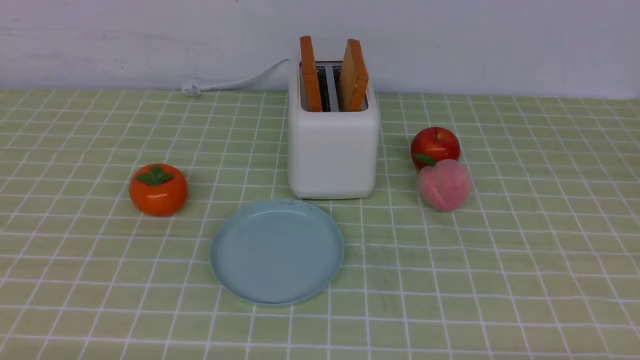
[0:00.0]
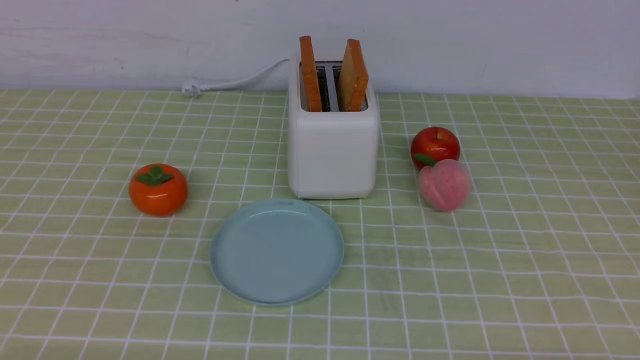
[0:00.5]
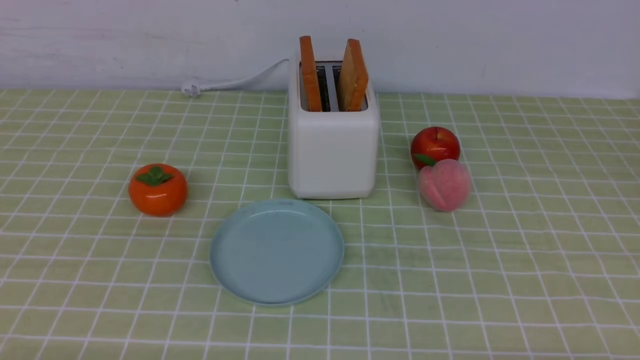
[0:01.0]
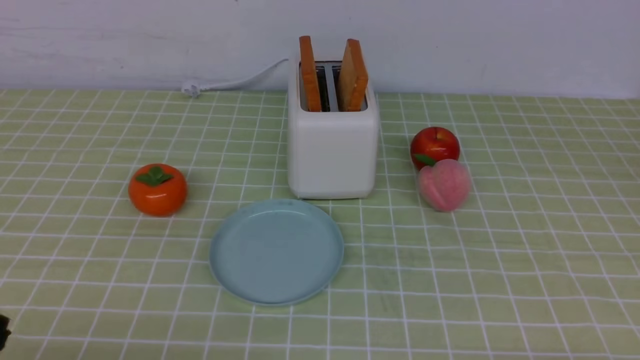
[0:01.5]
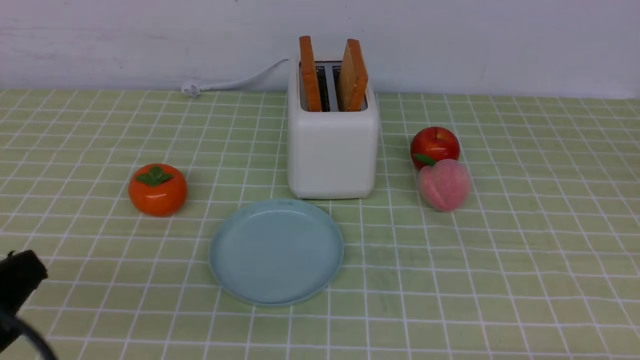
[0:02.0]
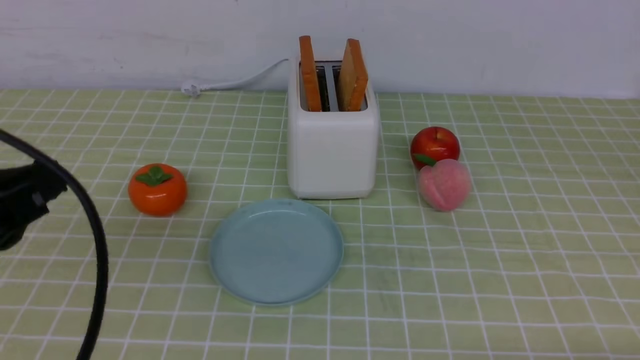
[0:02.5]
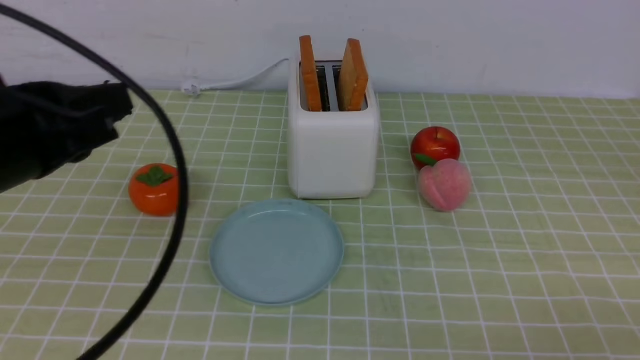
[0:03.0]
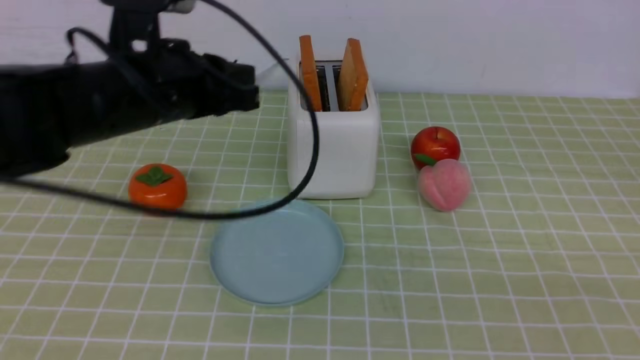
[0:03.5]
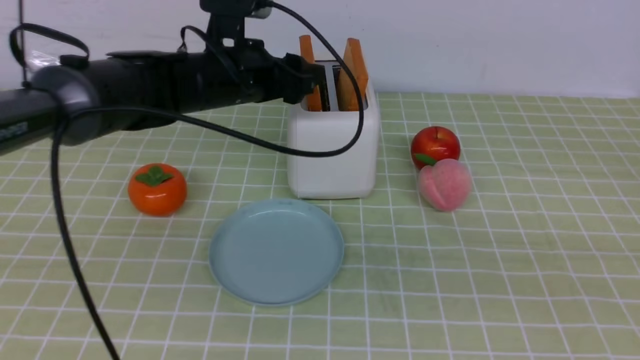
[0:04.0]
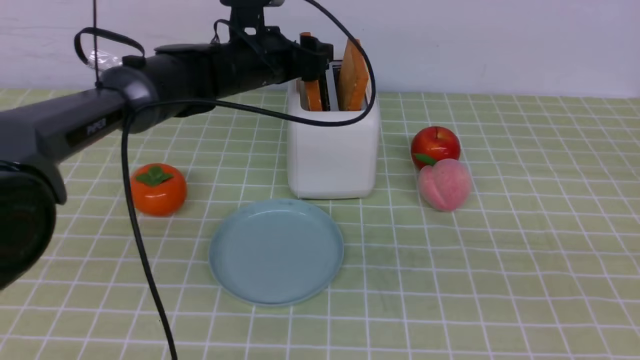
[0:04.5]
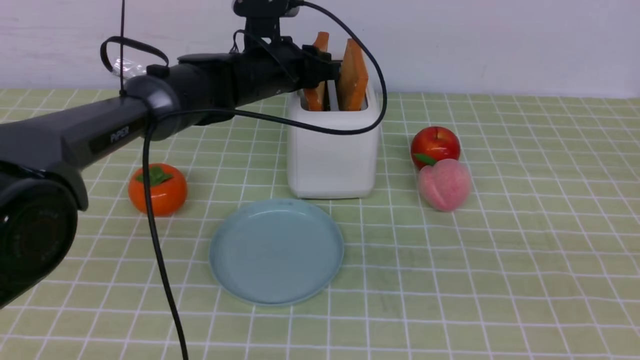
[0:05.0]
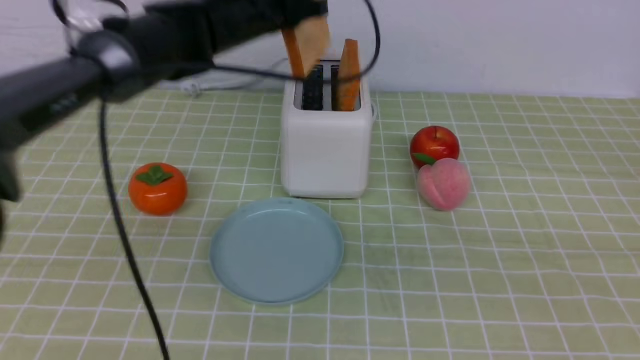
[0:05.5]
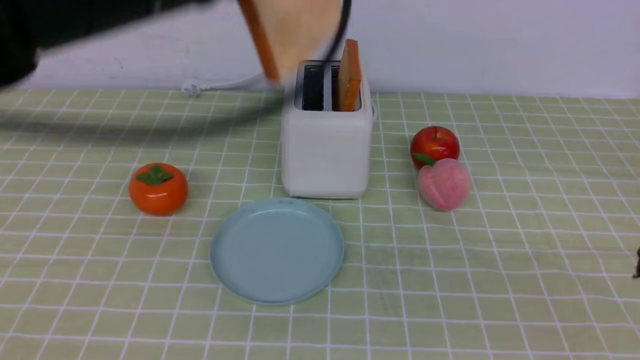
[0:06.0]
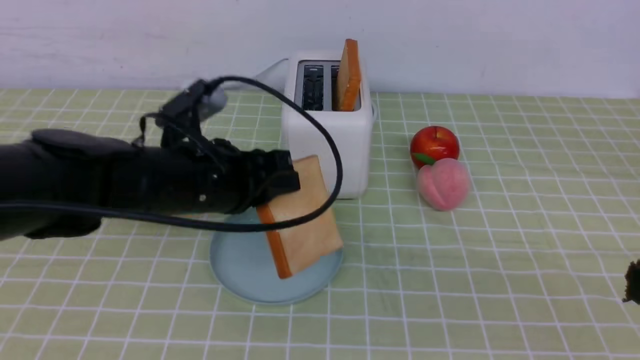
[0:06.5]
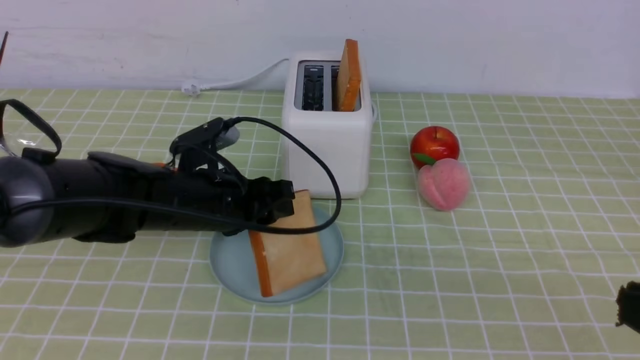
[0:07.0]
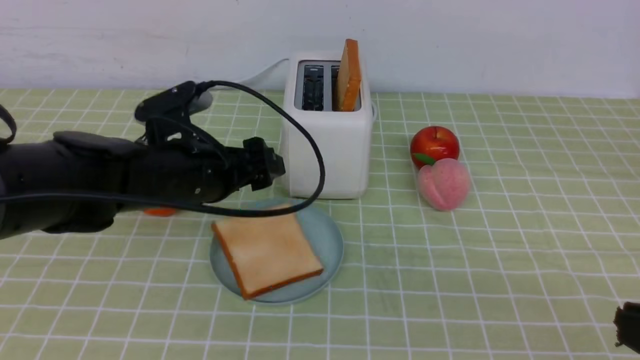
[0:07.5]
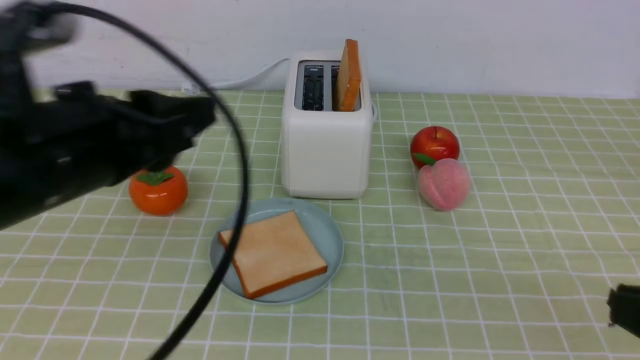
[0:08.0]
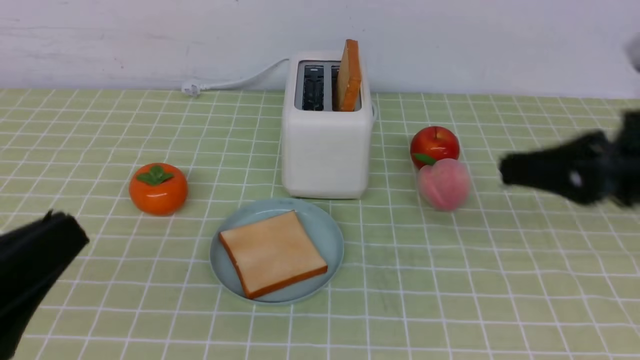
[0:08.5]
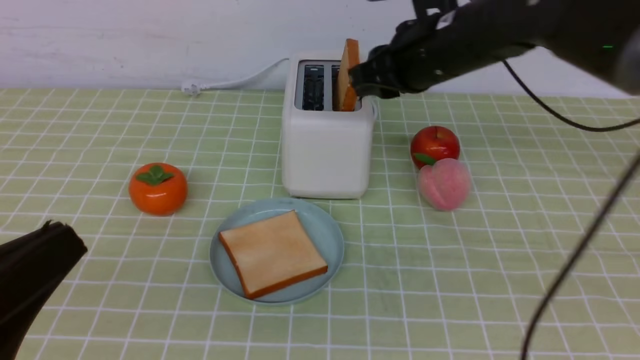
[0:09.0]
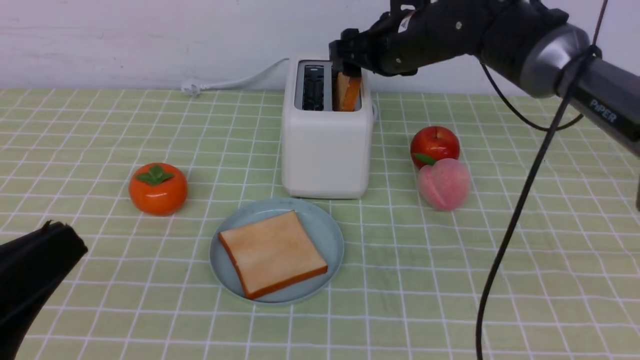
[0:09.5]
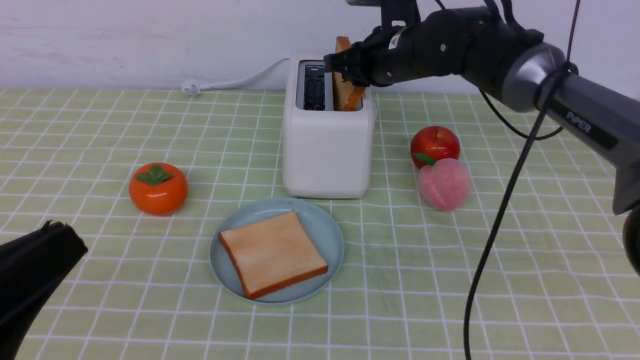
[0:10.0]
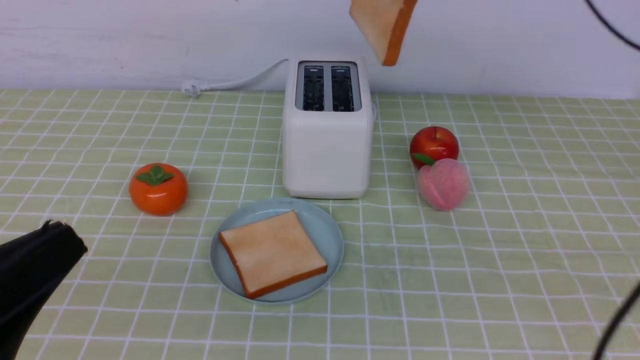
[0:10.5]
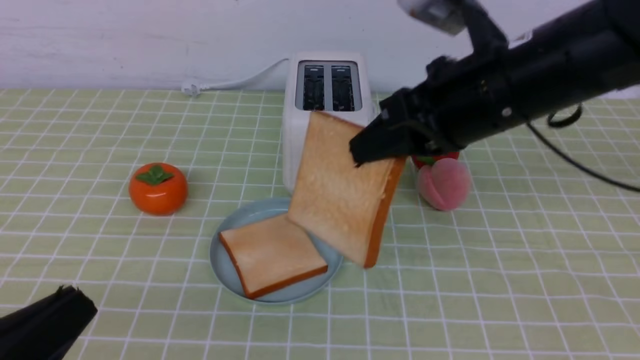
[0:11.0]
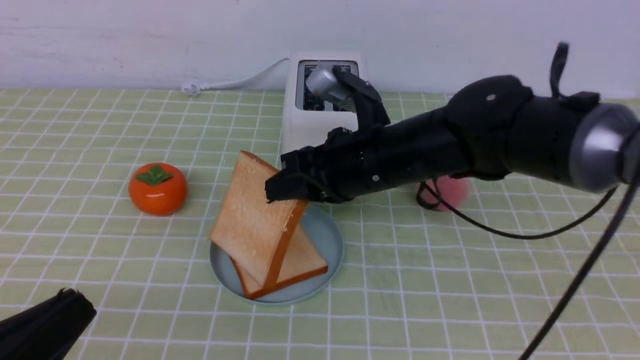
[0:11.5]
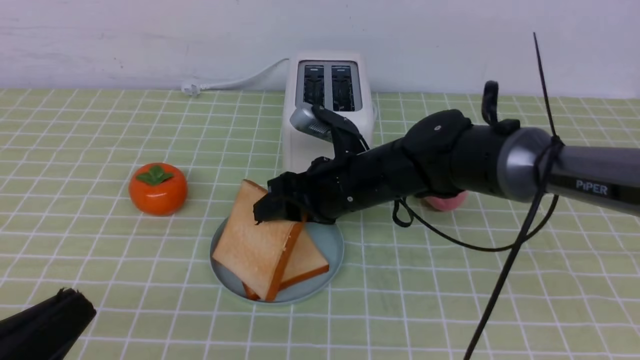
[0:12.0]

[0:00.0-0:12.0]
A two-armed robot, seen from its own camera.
Task of the whole recording: take toasted bread from bread machine on green coffee tablecloth place on plate.
Step, 0:00.0 to 0:05.0: use the left arm to take out a slice of bread.
Step, 0:05.5 to 0:07.5: use the left arm to put a slice of bread into the empty plate.
Step, 0:08.0 to 0:10.5: use the right arm to take out a slice of bread.
0:02.0 to 0:04.0: The left gripper is displaced forward by some 35 cm, and opens, while the right gripper shifts about 20 cm upward, and closes.
0:04.0 to 0:06.0: The left gripper goes some 15 cm upward and backward, and closes up.
0:06.0 to 0:08.0: The left gripper shifts roughly 15 cm backward and downward, and opens.
0:08.0 to 0:10.0: The left gripper goes about 15 cm backward, and closes its fingers. Meanwhile the right gripper goes approximately 40 cm forward, and opens up.
0:10.0 to 0:12.0: The right gripper moves backward, downward and to the left, approximately 15 cm.

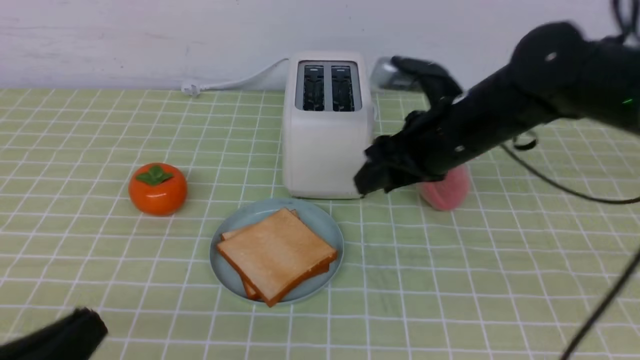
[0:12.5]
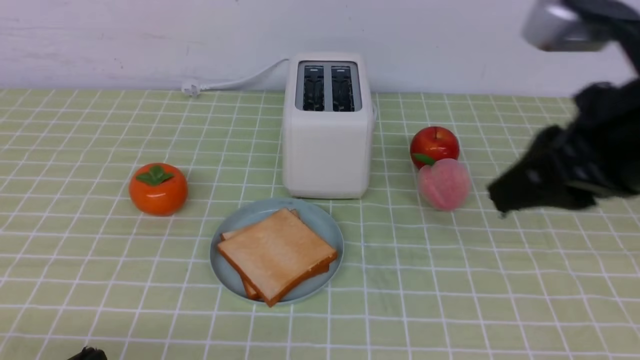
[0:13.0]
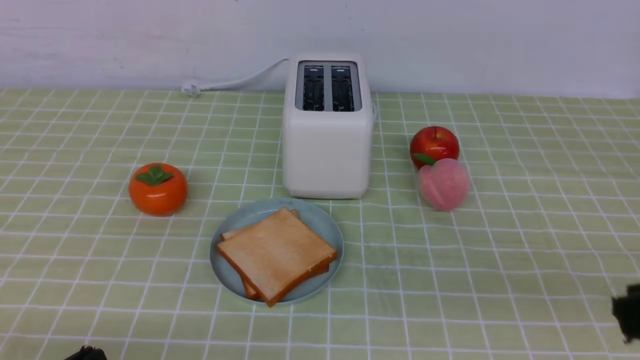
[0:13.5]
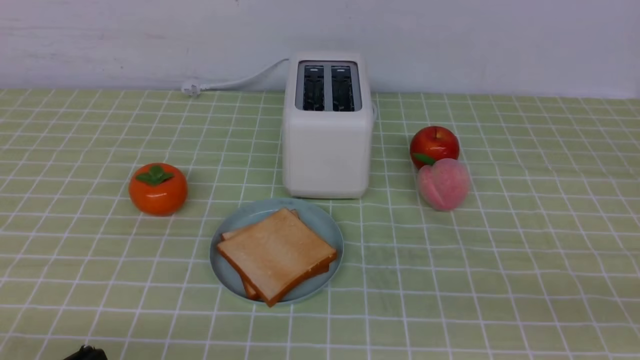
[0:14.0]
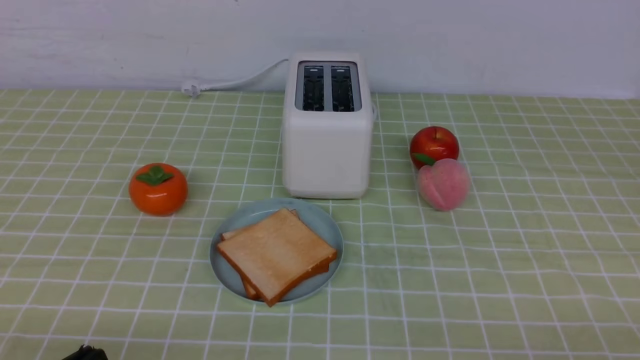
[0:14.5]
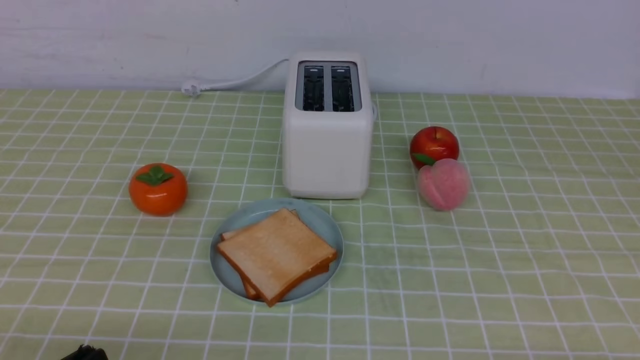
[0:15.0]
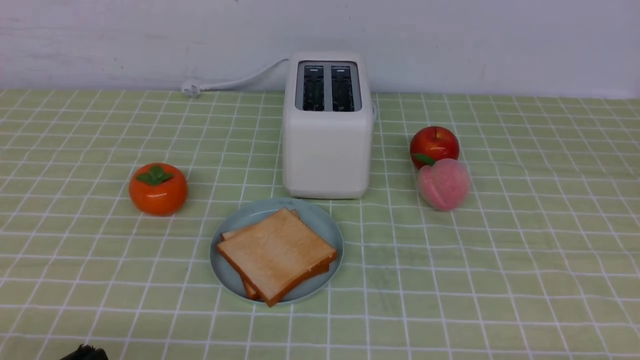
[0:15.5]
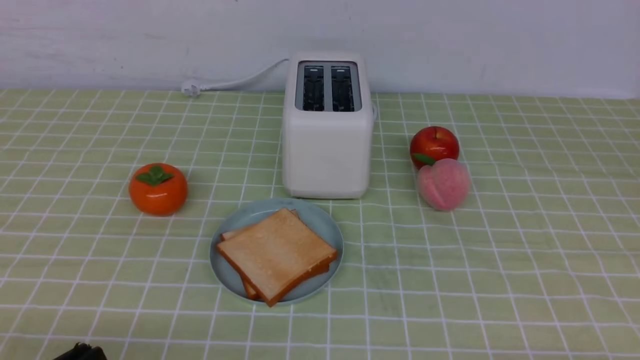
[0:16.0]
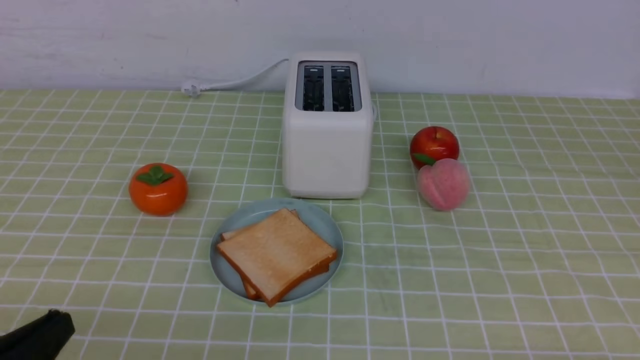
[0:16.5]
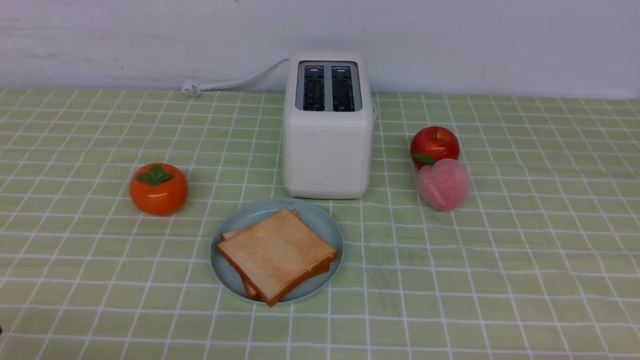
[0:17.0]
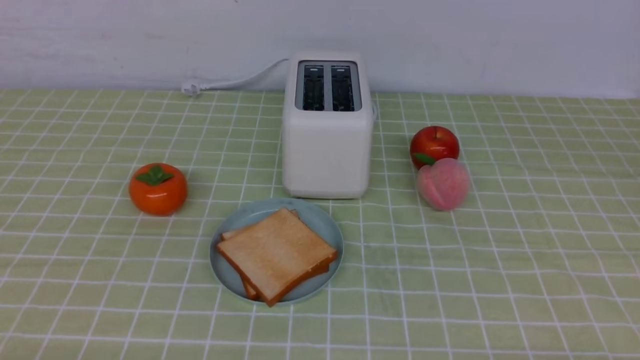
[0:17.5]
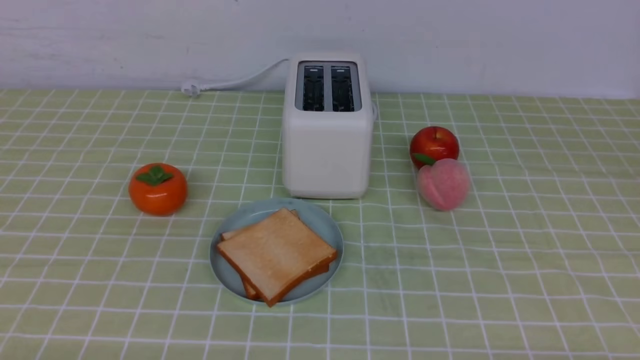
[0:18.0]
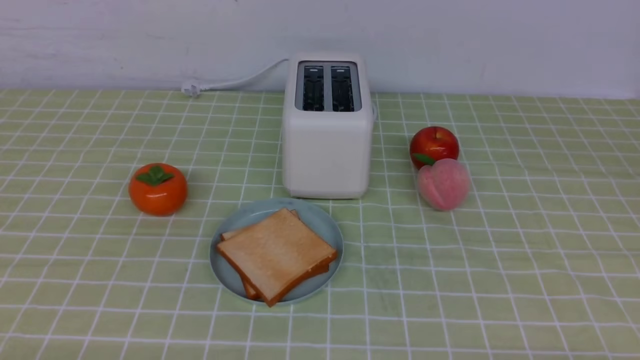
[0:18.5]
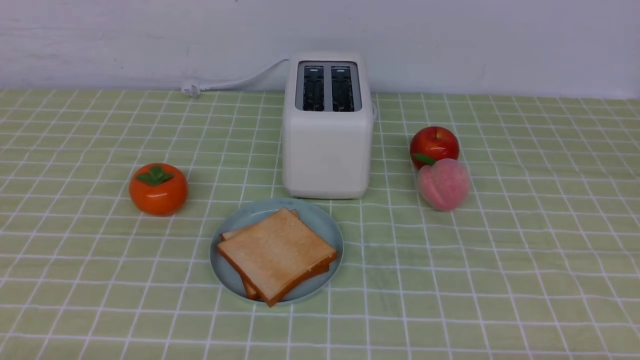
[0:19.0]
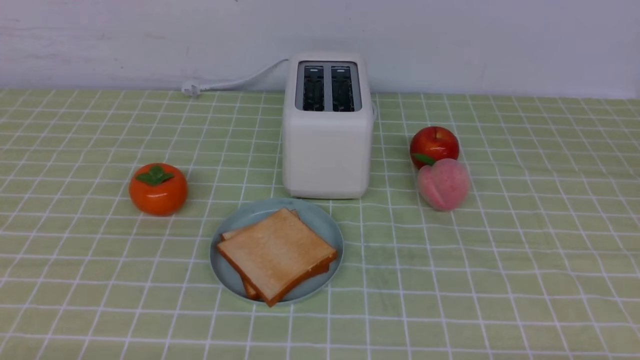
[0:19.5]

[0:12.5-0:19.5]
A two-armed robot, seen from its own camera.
Task of the whole recording: take toasted bread from bread machine on green coffee tablecloth place on plate.
0:12.5 to 0:14.5: The right gripper travels backward and to the right by about 35 cm, and closes. The left gripper travels downward by some 5 cm.
